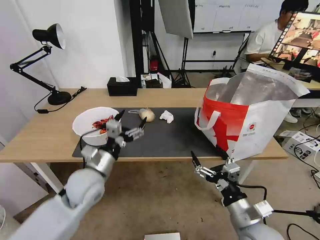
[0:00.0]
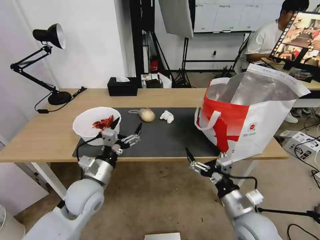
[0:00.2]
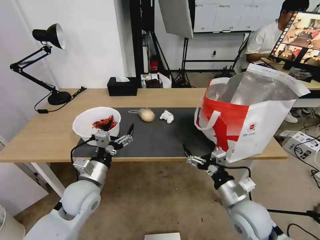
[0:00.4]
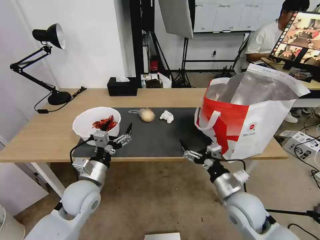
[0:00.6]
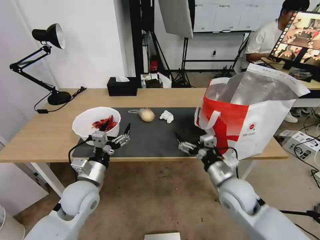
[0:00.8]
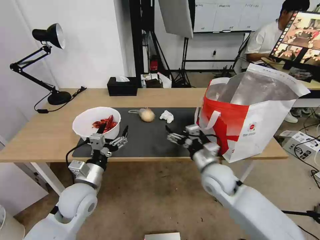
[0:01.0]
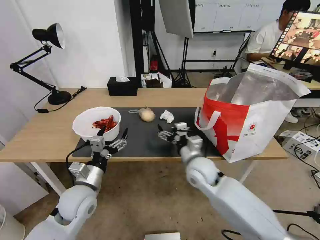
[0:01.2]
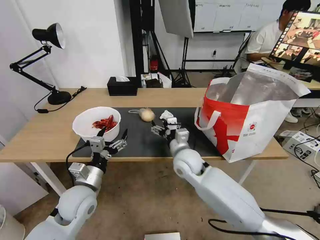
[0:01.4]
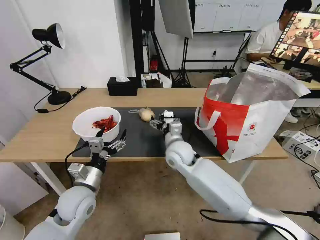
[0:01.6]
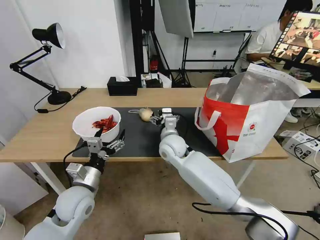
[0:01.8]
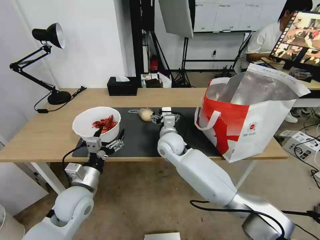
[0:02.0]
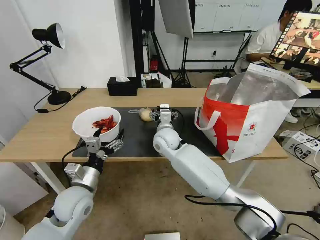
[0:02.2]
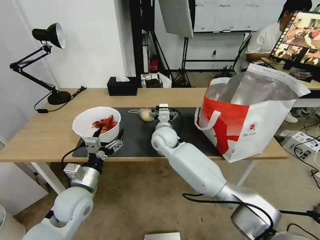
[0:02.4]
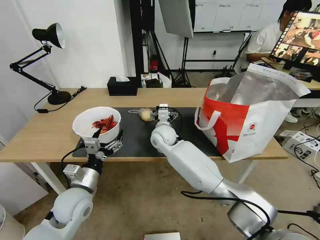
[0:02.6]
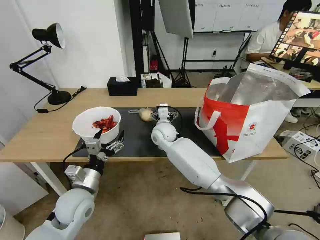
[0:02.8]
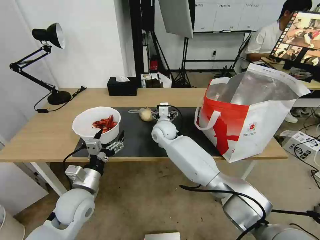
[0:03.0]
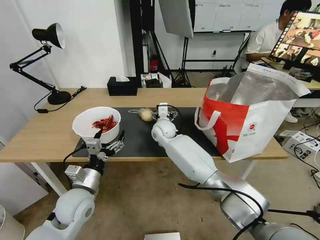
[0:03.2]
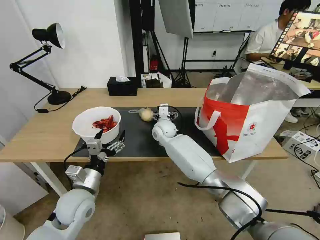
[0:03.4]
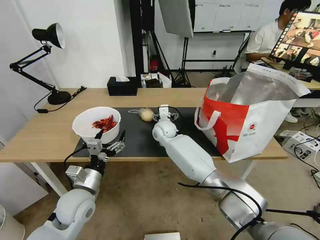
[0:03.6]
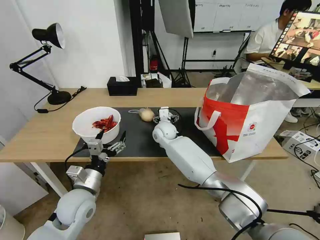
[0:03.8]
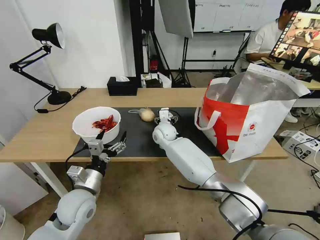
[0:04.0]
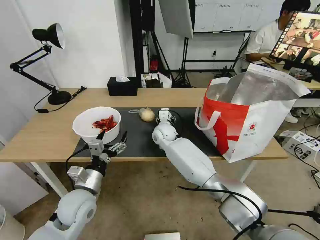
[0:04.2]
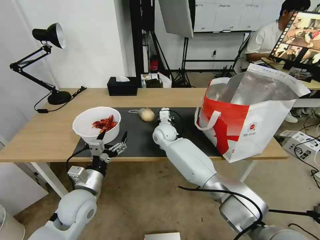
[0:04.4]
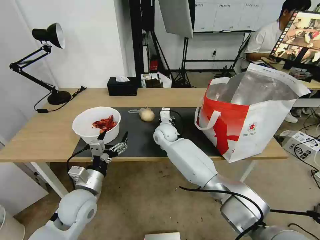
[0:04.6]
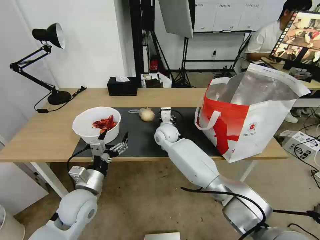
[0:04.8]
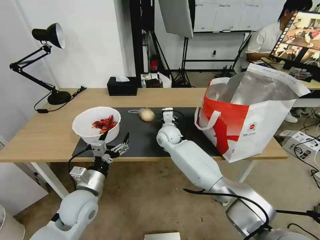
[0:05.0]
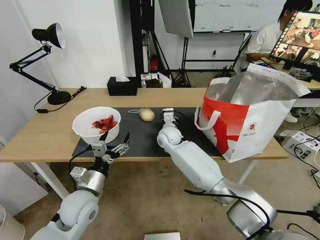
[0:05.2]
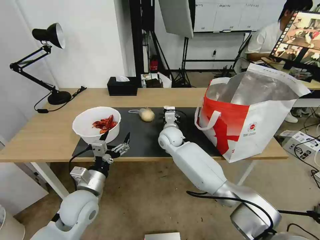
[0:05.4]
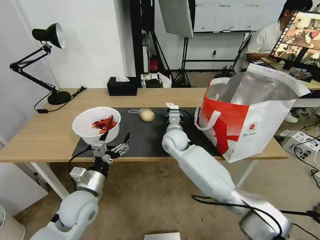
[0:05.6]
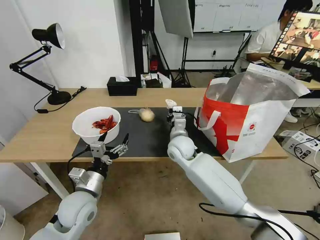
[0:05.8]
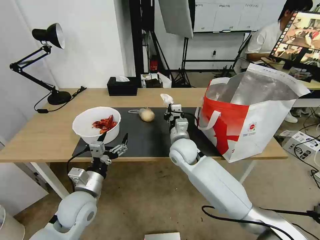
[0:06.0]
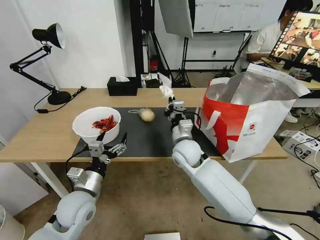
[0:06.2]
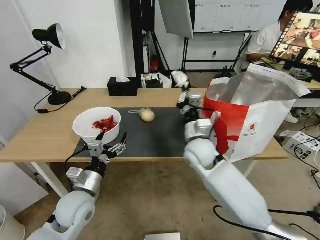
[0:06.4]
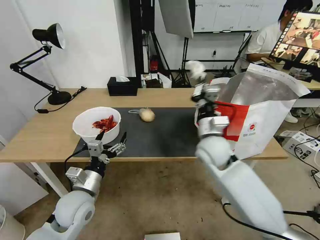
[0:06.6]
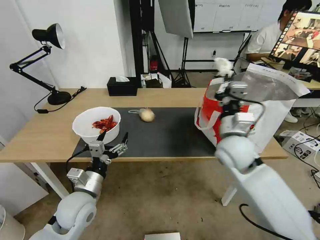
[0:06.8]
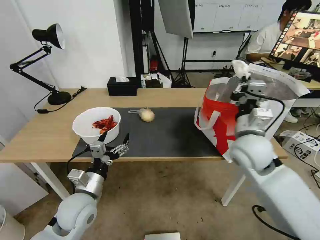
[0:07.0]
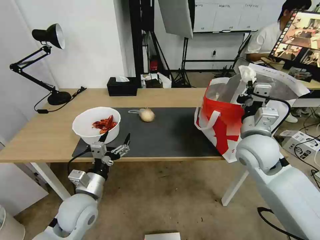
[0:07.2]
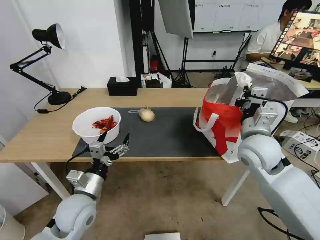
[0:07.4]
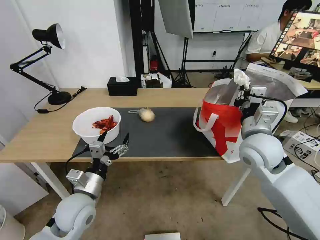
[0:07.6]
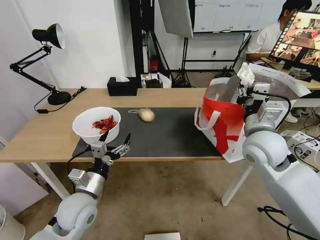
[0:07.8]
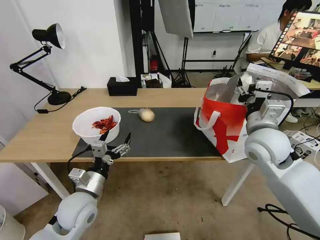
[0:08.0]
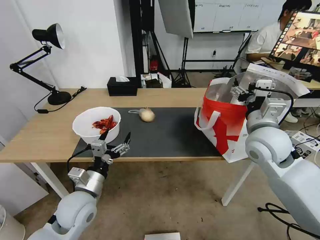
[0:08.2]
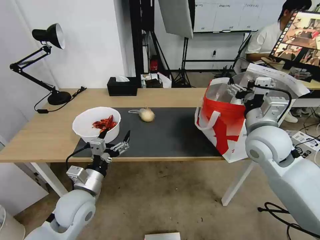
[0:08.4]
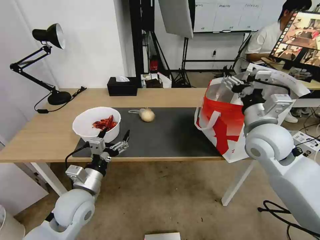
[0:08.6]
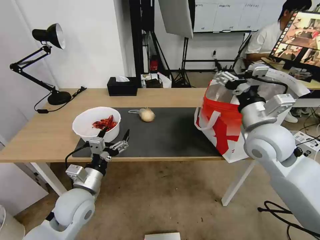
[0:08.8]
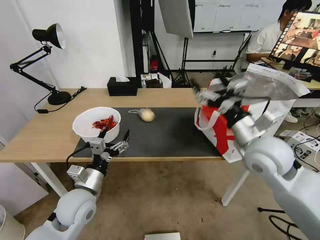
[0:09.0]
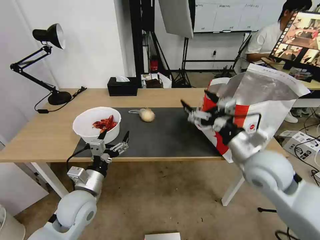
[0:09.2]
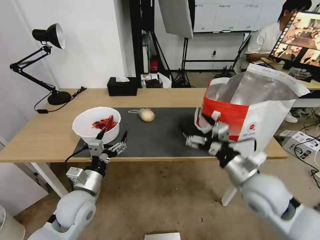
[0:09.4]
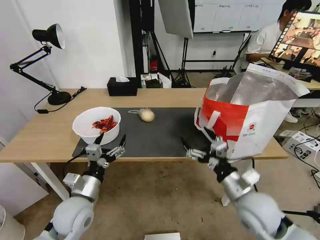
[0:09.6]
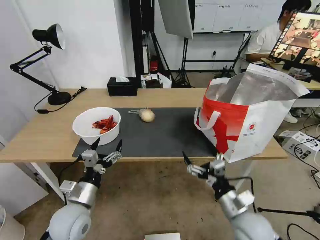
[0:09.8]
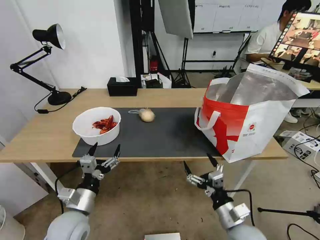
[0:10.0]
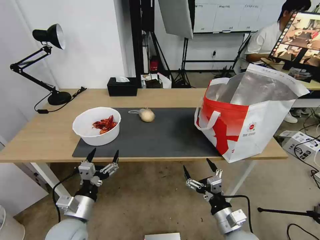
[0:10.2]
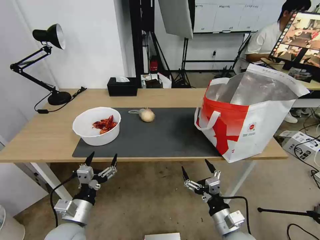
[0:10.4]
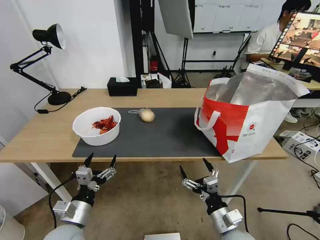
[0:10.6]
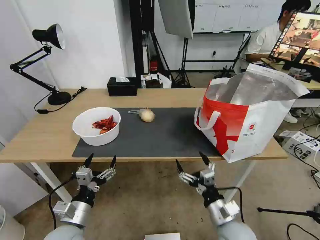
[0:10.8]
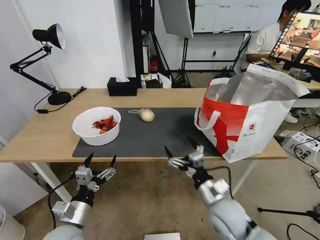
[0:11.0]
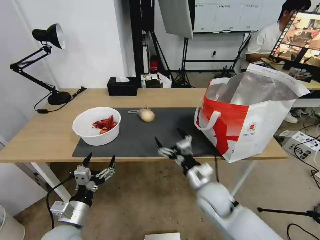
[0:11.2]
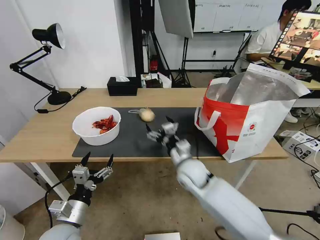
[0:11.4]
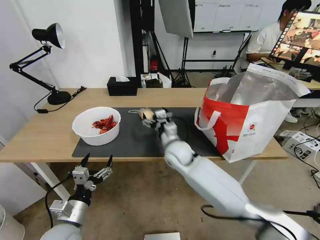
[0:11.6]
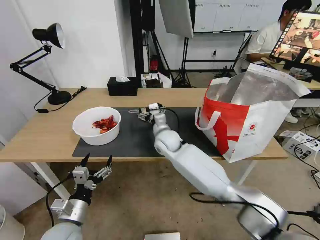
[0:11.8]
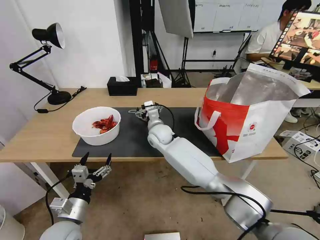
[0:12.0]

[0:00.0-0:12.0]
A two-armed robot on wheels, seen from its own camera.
Task of the whole recording: Pick up the trash from the table and place it into the takeout bag.
0:00.0 to 0:01.6: The right gripper is displaced forward and to the left by approximately 30 cm, while the left gripper moves downward, approximately 5 cm.
0:01.6 to 0:03.0: The right gripper goes some 15 cm forward and to the left.
0:03.0 to 0:04.4: The right gripper closes its fingers.
0:04.4 to 0:06.0: The right gripper moves backward and to the right, roughly 15 cm, and closes.
0:06.0 to 0:07.6: The right gripper is displaced to the right, upward and backward by about 25 cm.
0:07.6 to 0:09.0: The right gripper opens up.
0:09.0 to 0:10.4: The left gripper shifts about 10 cm backward and downward. Meanwhile the right gripper is displaced downward and backward by roughly 30 cm.
0:10.4 to 0:12.0: The right gripper shifts some 40 cm forward and to the left.

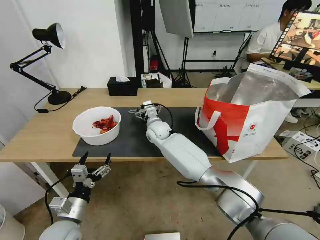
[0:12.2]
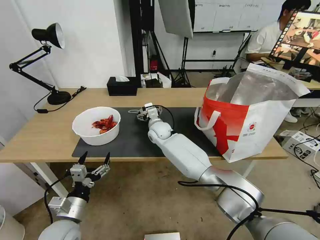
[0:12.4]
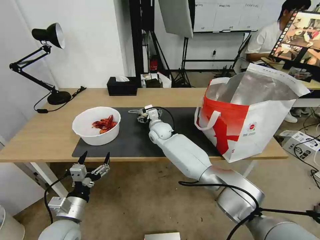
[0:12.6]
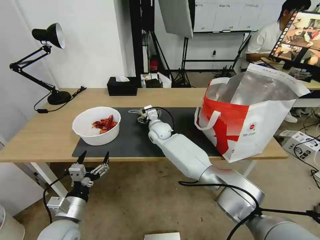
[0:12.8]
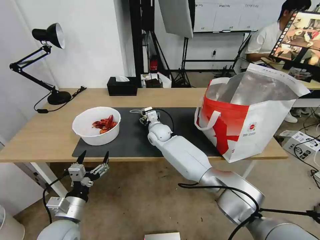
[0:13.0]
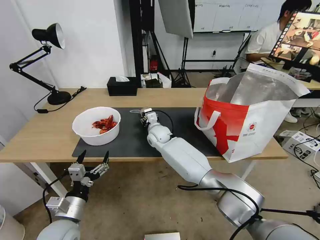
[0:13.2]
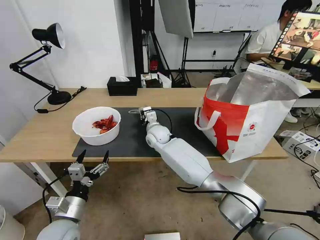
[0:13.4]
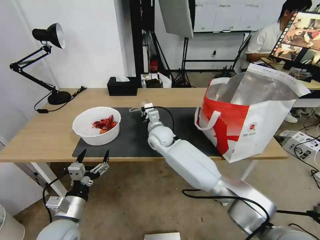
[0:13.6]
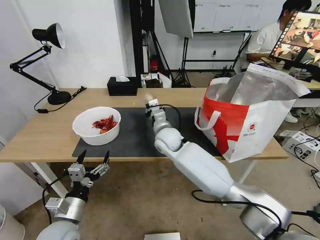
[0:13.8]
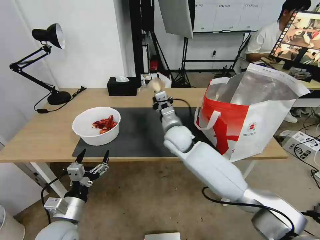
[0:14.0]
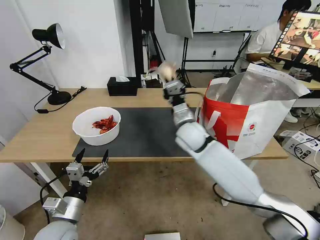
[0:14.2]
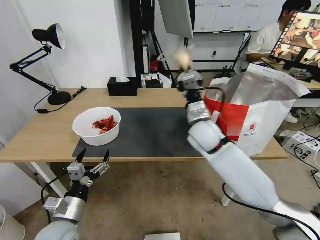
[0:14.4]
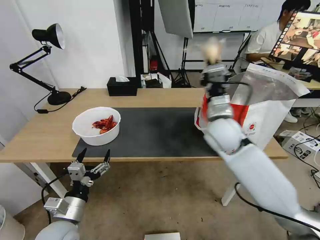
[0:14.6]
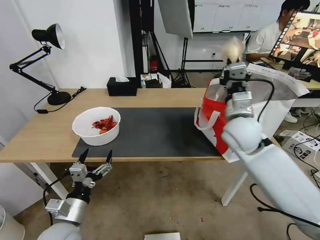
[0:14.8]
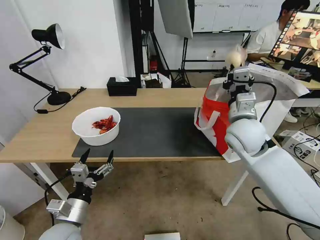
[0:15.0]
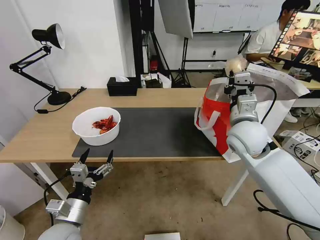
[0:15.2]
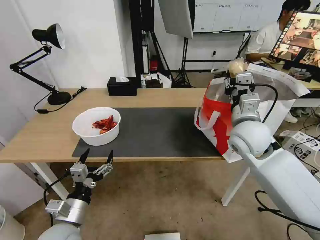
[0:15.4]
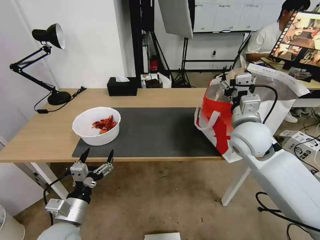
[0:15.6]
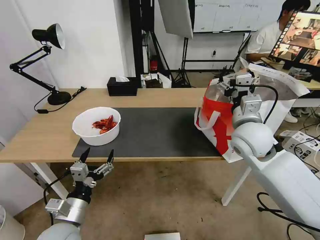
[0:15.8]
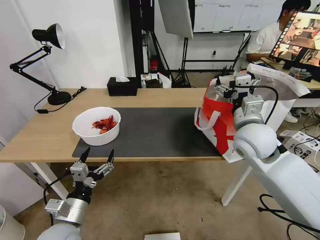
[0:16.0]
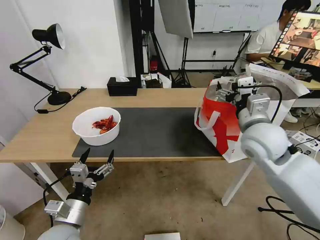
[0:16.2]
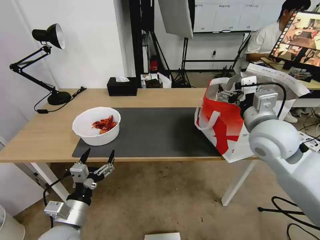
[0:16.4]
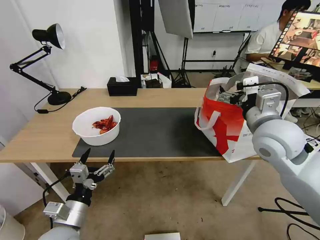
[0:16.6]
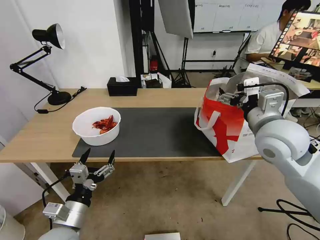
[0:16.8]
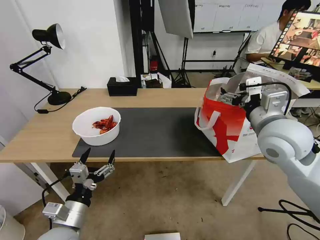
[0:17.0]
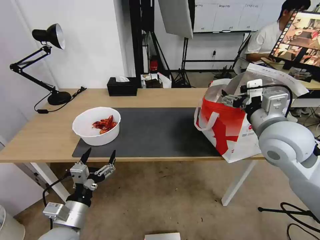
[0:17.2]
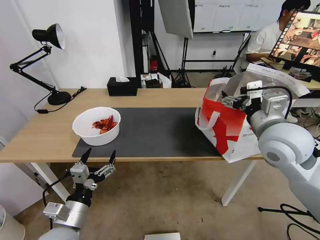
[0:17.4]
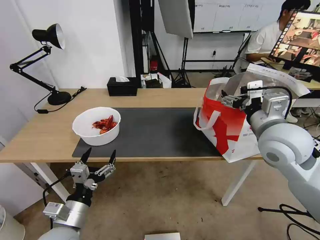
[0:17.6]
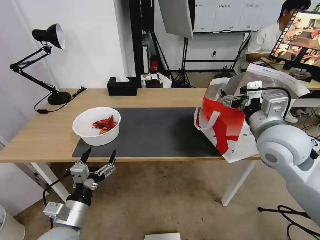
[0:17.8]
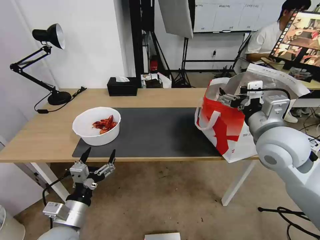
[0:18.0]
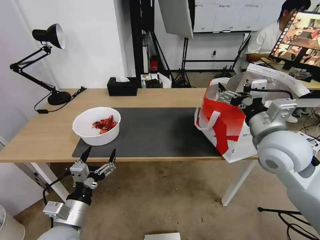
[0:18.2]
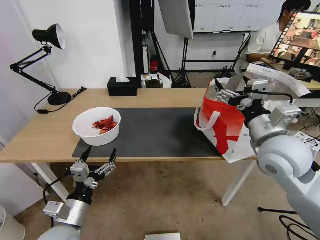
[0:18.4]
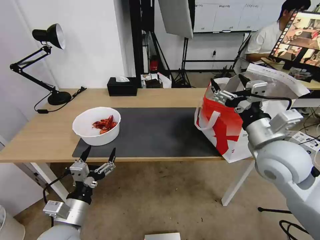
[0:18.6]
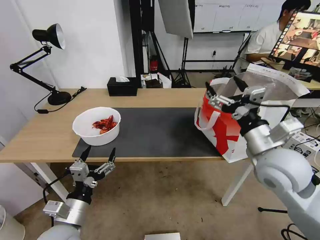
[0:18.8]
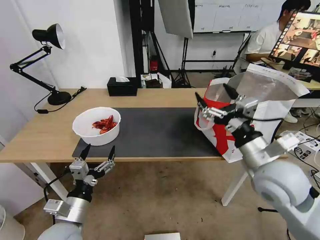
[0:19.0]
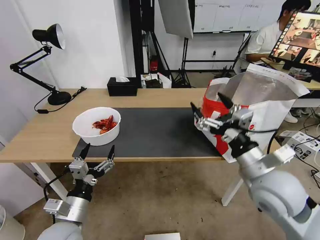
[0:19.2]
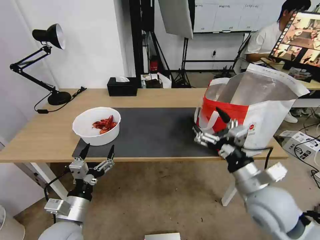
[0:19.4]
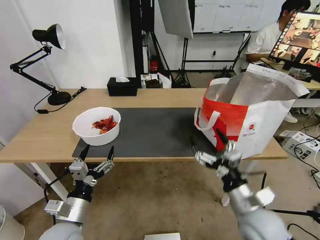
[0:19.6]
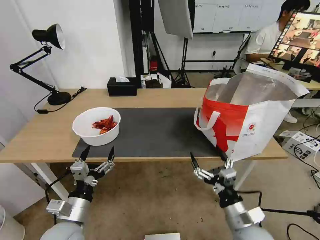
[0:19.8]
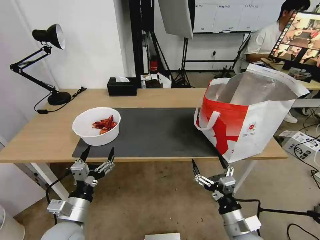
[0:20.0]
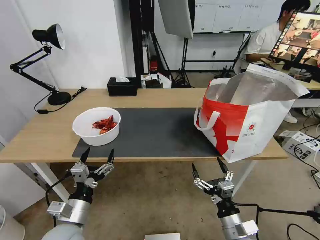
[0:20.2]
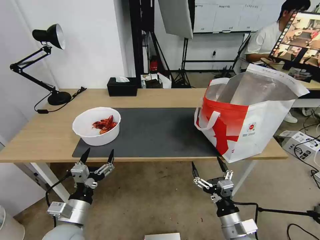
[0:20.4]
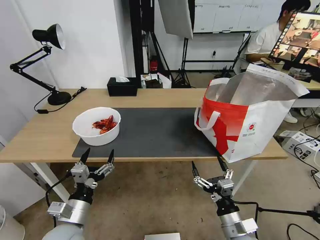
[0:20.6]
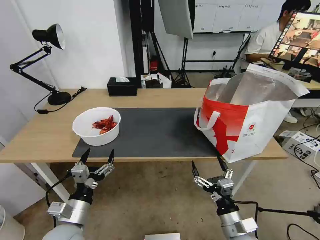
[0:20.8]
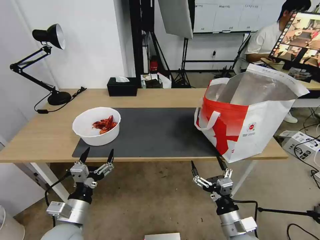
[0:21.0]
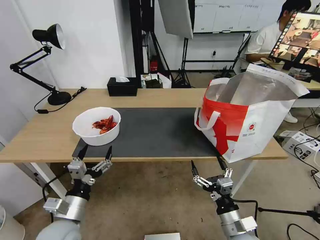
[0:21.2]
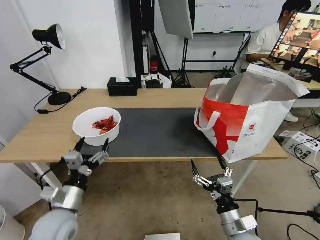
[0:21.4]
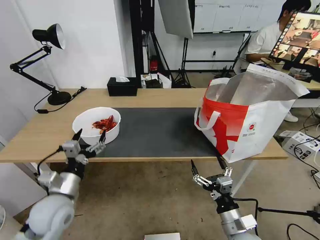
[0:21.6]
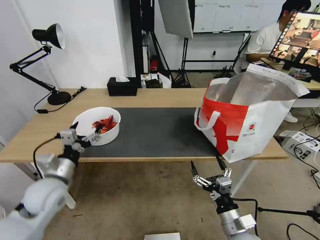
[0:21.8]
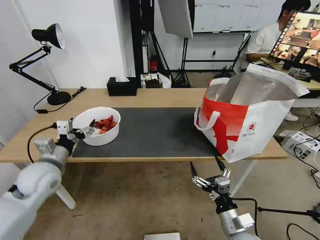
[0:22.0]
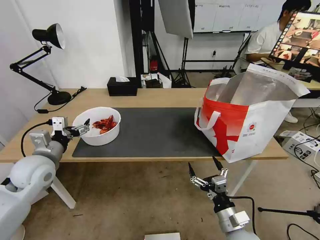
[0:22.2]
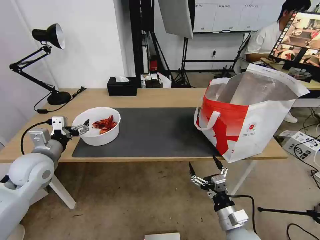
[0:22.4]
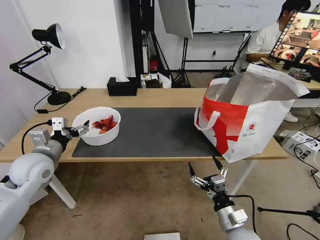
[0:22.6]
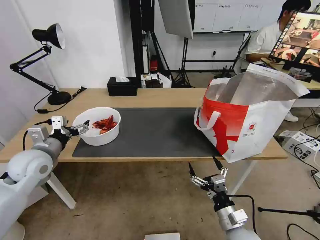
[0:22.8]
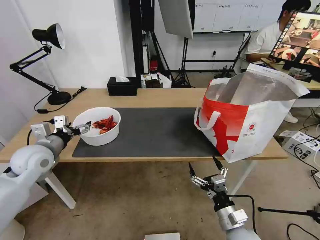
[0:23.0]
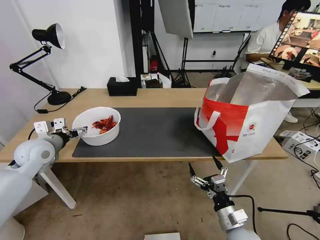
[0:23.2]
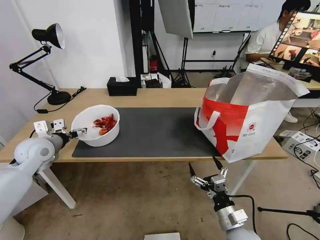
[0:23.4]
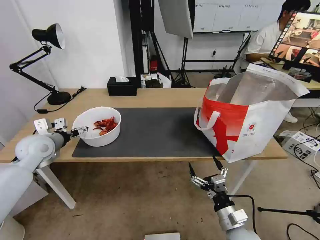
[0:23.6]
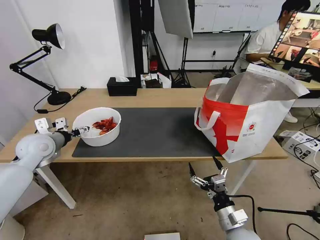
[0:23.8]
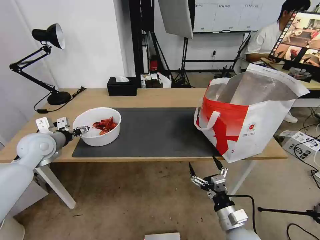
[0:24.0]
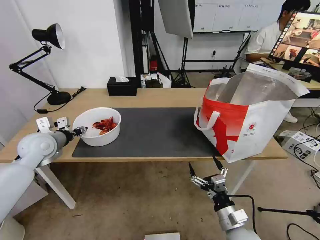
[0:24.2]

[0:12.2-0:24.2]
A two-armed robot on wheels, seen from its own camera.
Task of the whole recording: Pick up the trash from the table and place it into the takeout bag.
0:12.2 to 0:13.8: The right gripper is displaced backward by about 5 cm, and closes its fingers.
0:13.8 to 0:15.2: The right gripper moves to the right, upward and backward, approximately 25 cm.
0:15.2 to 0:16.6: The right gripper ends up about 5 cm from where it was, and opens.
0:16.6 to 0:18.2: The grippers stay close to where they were, moving slightly.
0:18.2 to 0:19.8: The right gripper travels downward and backward by approximately 25 cm.
0:19.8 to 0:21.2: The grippers make only small movements.
0:21.2 to 0:22.6: The left gripper heads forward, upward and to the left, covering roughly 20 cm.
0:22.6 to 0:24.2: The left gripper heads forward, covering about 5 cm, and closes its fingers.
